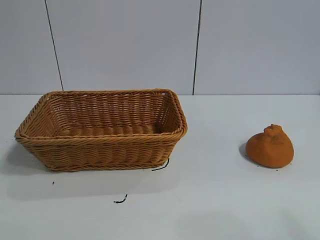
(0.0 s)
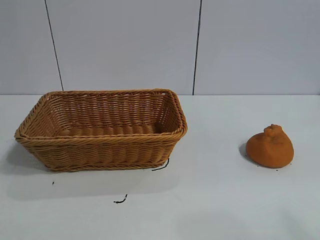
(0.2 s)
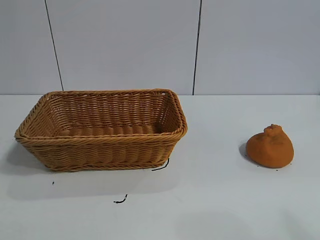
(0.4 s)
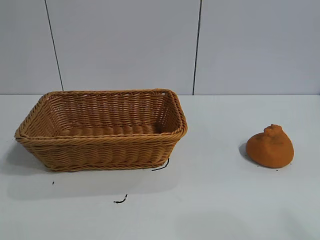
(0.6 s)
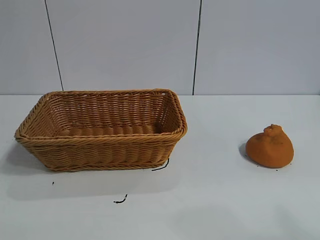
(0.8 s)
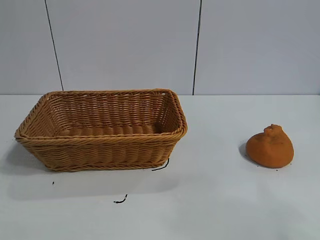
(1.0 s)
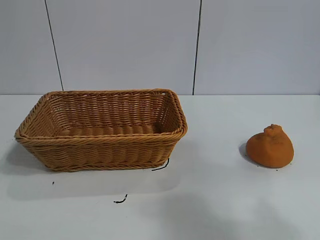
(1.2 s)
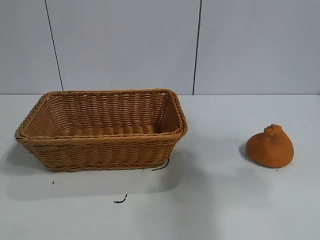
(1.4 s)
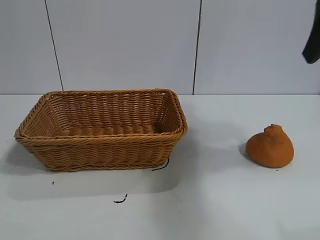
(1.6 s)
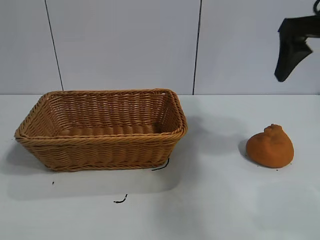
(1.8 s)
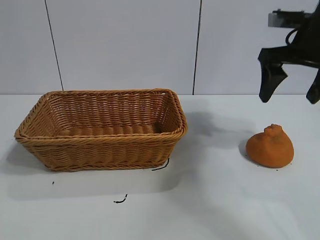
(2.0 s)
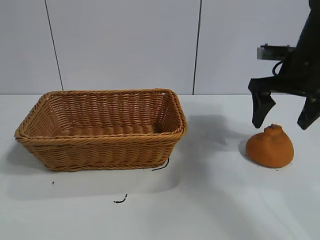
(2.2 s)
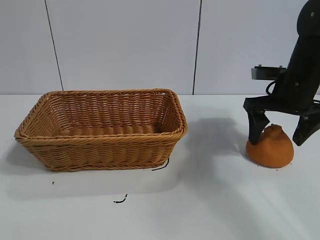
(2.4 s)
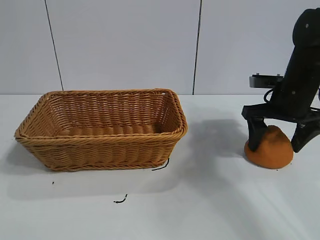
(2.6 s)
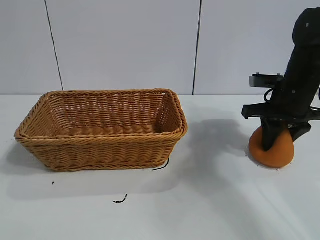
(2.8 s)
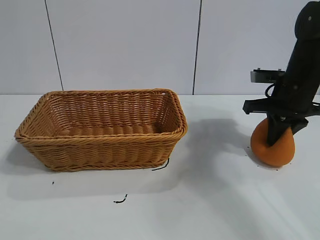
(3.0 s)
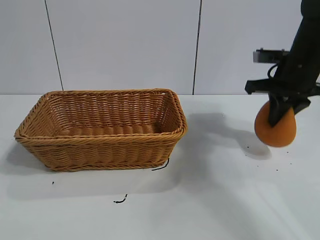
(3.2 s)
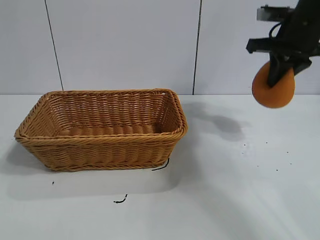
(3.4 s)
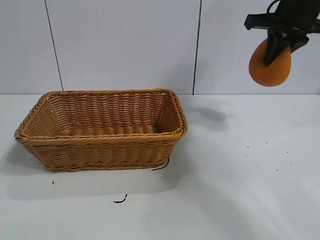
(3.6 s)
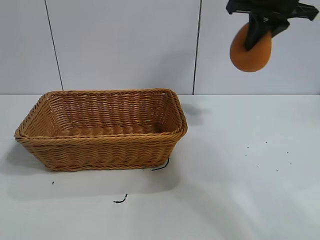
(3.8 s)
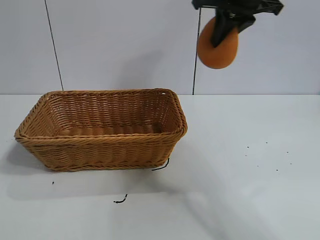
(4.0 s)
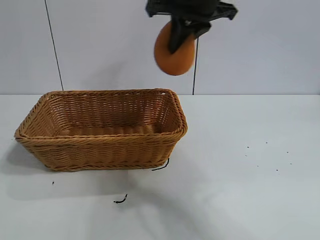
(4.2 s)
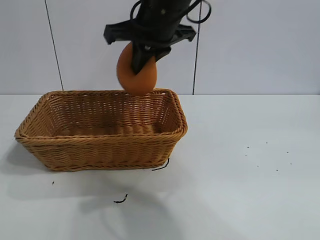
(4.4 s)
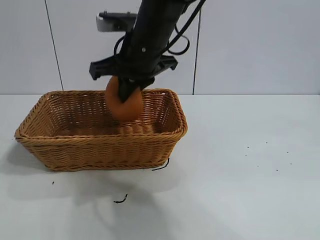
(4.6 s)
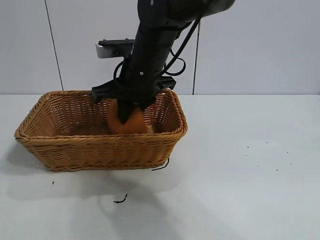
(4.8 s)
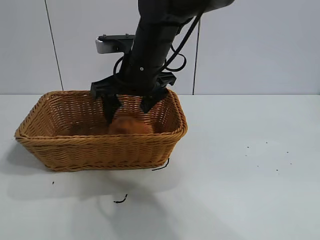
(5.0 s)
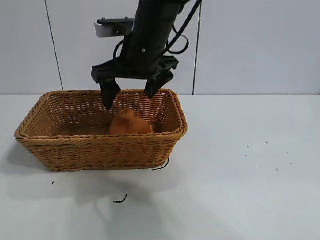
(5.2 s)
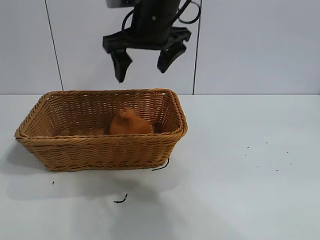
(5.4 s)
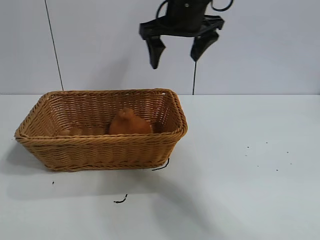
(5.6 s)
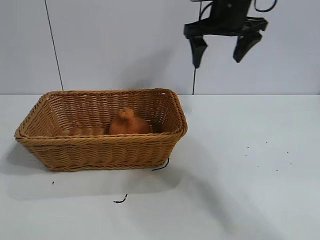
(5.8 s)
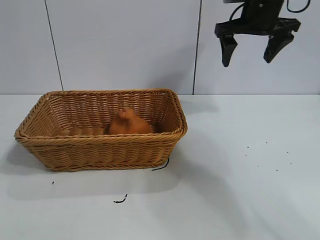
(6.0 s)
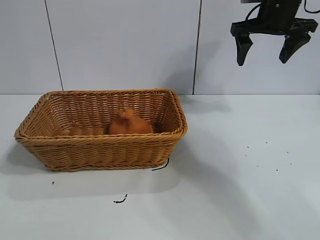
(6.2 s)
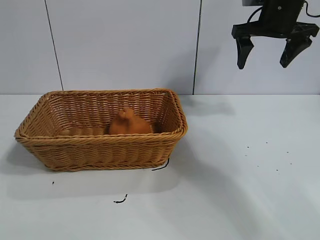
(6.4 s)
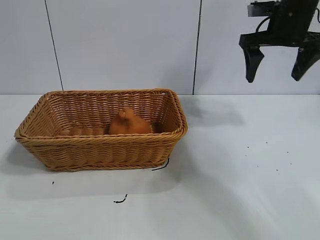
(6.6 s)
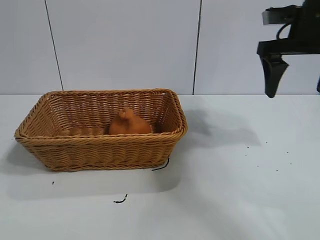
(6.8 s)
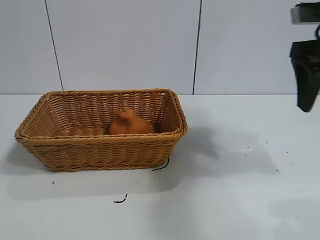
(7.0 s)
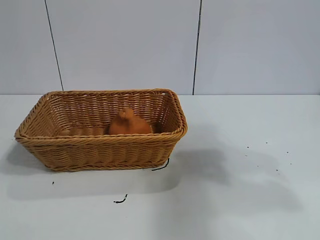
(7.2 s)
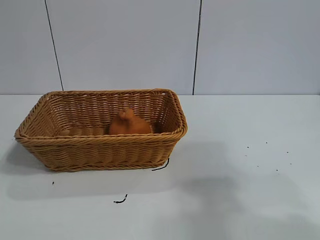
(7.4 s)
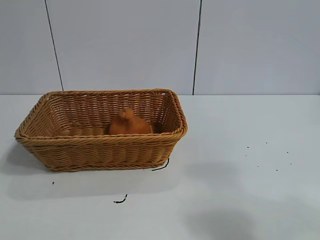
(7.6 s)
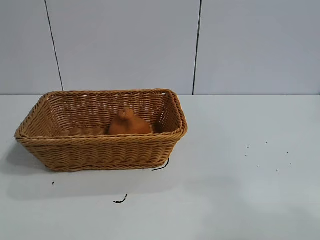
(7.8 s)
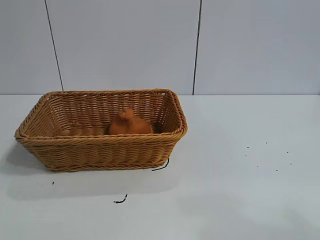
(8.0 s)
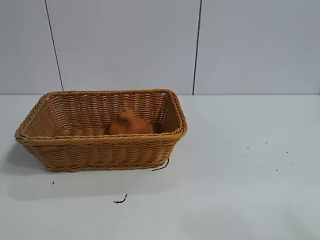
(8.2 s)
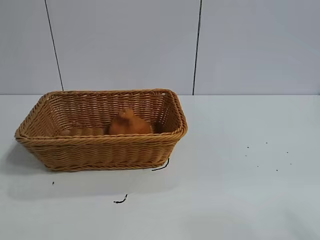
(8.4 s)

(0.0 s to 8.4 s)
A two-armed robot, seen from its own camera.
Task of the whole recording: pick up the orange and put it into the basket.
Step, 0.8 s - 3.0 s: Grasp the orange with right gripper.
Step, 3.2 s - 5.0 s: Place the orange in the basket with right gripper.

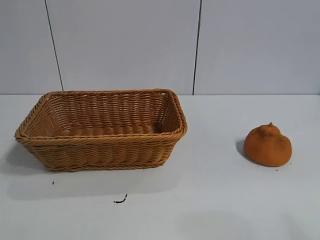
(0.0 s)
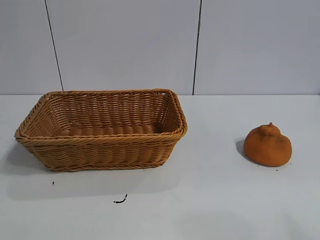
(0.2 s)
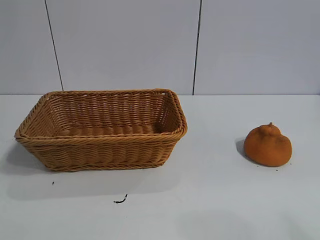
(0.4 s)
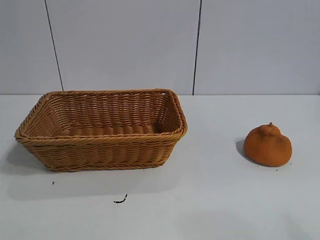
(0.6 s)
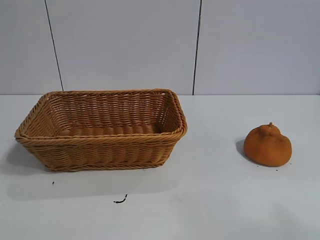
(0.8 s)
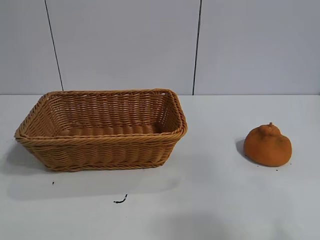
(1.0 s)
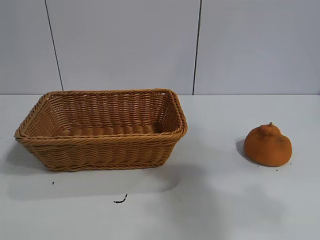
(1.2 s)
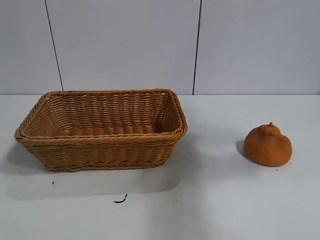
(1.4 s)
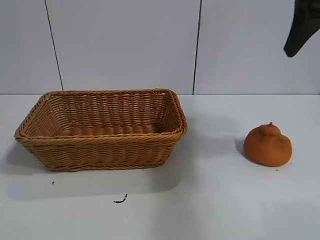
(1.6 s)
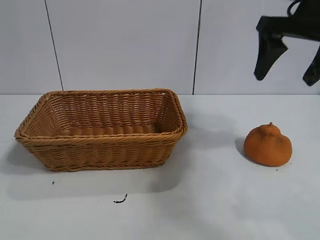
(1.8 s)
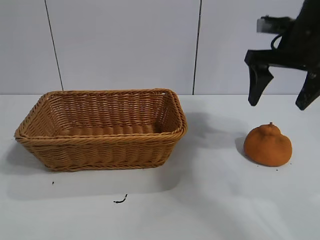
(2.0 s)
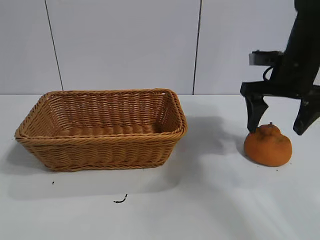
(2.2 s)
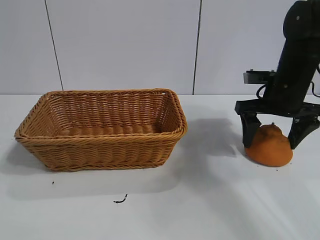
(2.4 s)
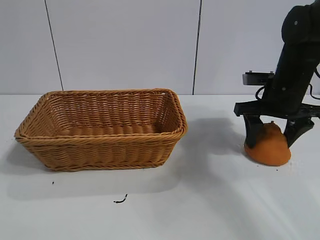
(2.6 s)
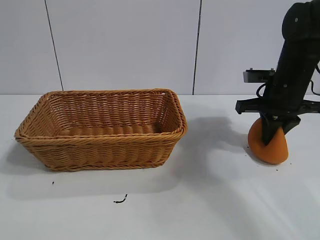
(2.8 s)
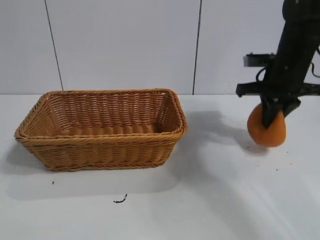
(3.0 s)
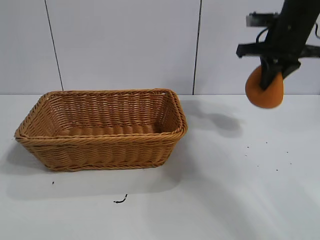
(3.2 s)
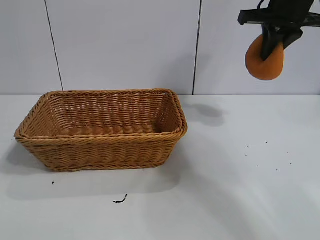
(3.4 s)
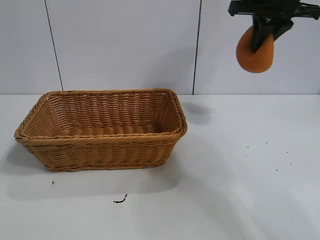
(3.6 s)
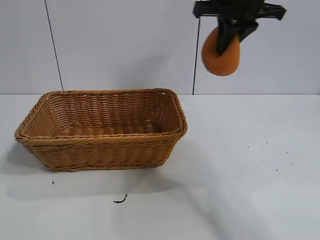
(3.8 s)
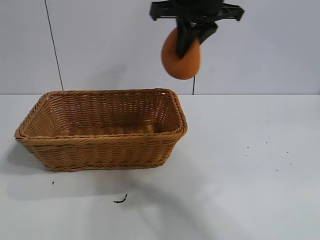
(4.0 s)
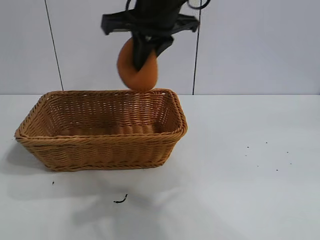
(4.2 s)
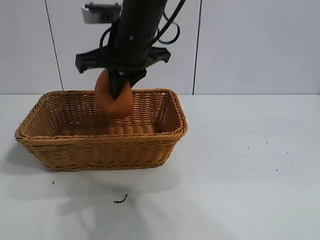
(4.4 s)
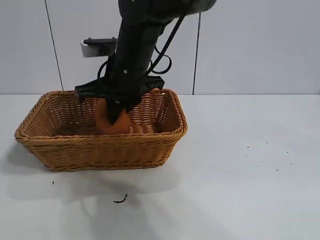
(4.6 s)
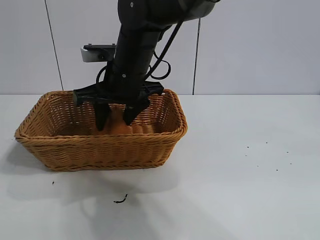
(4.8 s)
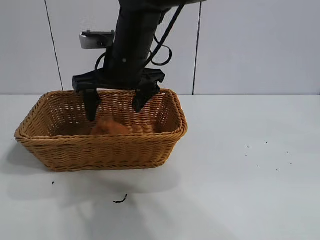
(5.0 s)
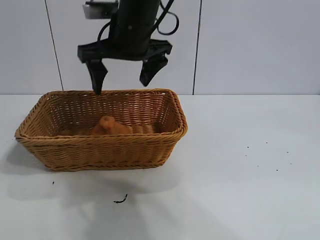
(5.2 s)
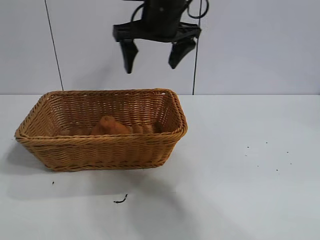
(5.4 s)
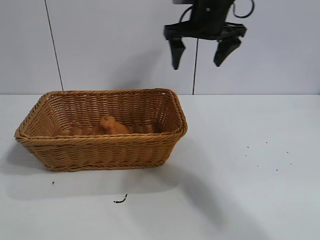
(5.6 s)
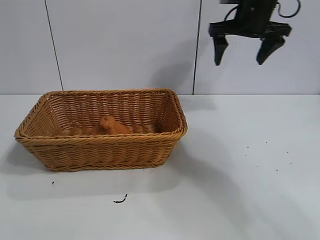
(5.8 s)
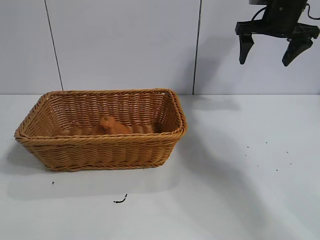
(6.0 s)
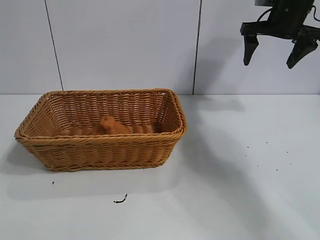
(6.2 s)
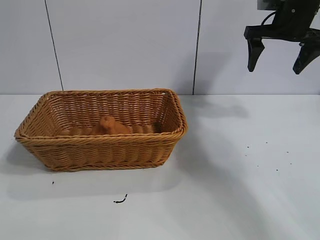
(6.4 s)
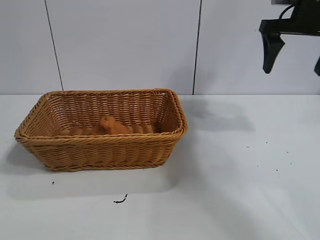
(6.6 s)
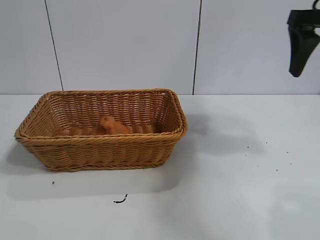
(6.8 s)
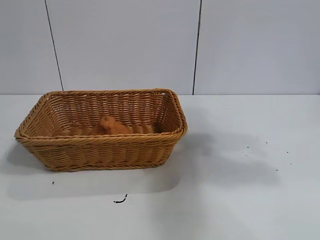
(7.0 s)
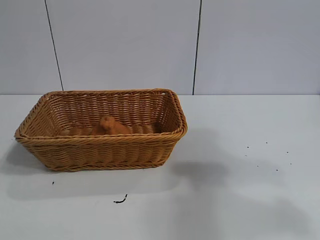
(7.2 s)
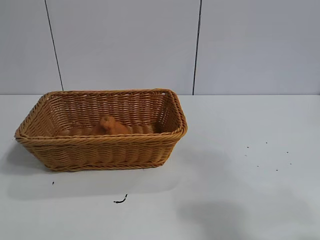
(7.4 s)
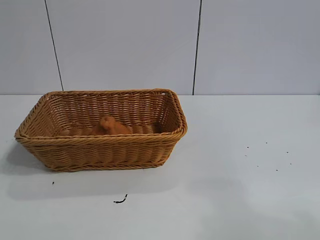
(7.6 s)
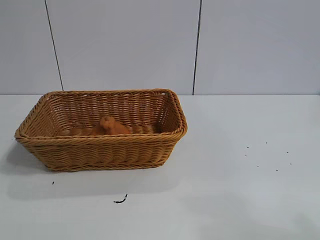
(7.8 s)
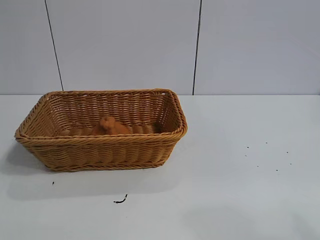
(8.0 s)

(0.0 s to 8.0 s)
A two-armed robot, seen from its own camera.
Task of the whole recording: pick up the orange and put it into the basket.
Step, 0.8 s - 2.6 s: Grasp the orange with right gripper.
Step, 3.0 s - 4.8 s: Place the orange in the basket with right gripper.

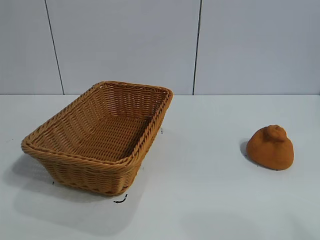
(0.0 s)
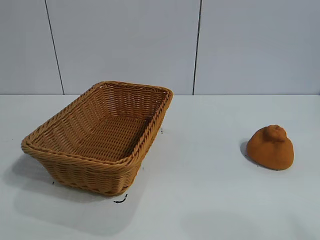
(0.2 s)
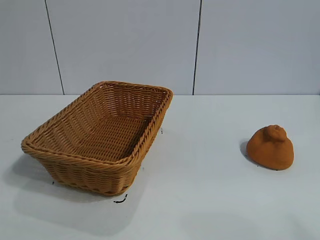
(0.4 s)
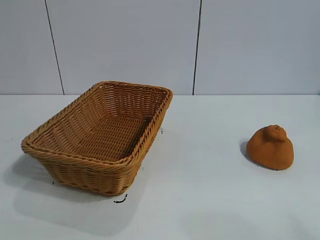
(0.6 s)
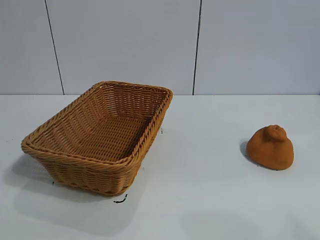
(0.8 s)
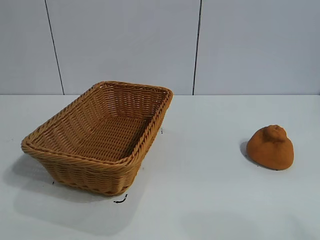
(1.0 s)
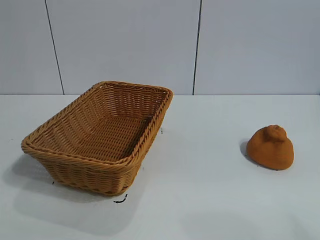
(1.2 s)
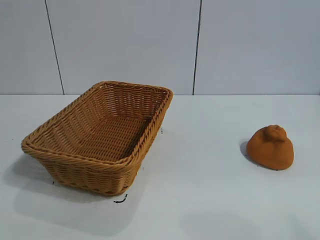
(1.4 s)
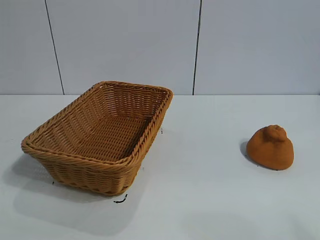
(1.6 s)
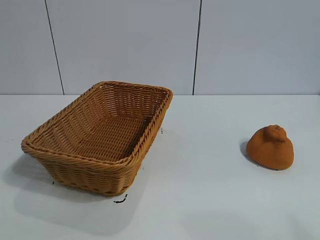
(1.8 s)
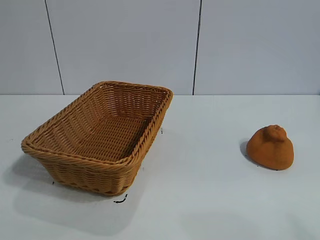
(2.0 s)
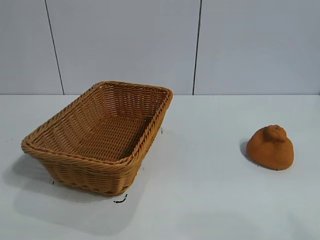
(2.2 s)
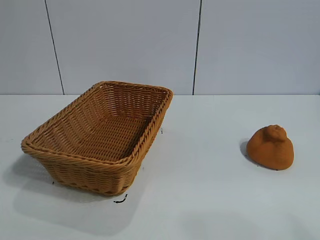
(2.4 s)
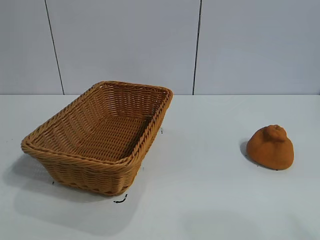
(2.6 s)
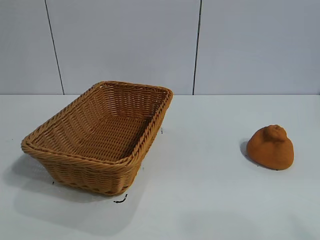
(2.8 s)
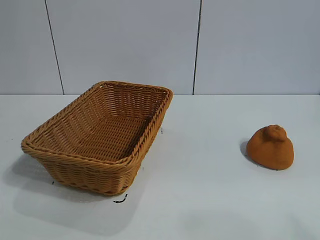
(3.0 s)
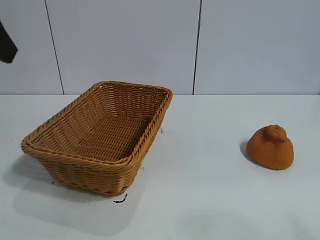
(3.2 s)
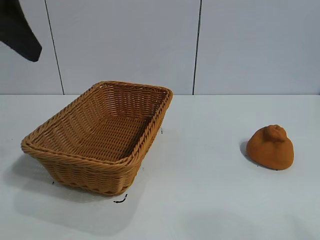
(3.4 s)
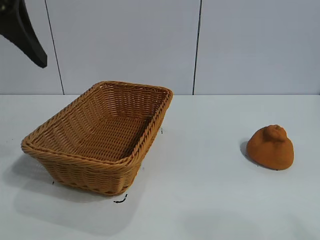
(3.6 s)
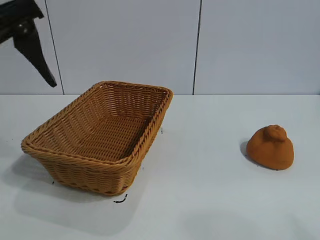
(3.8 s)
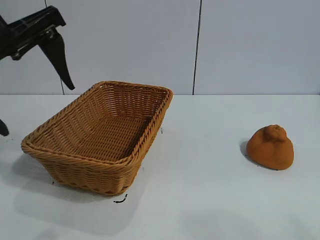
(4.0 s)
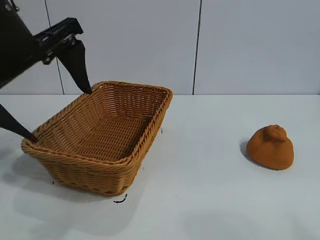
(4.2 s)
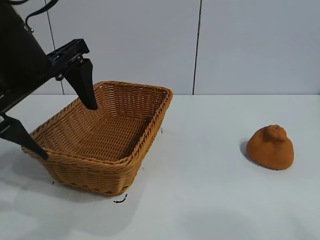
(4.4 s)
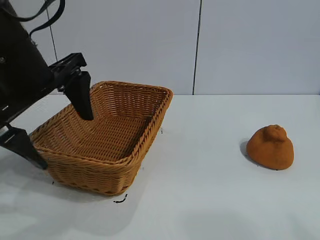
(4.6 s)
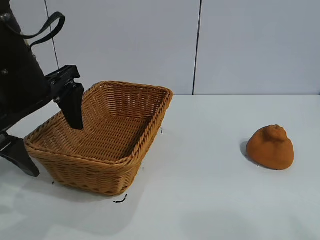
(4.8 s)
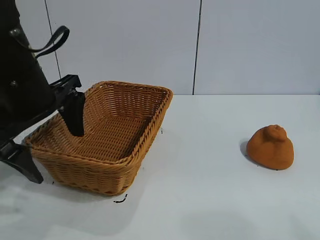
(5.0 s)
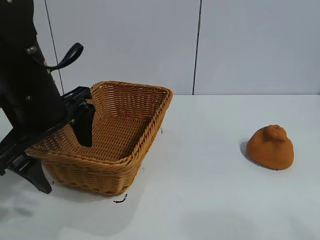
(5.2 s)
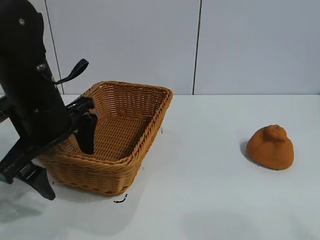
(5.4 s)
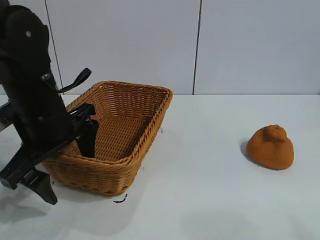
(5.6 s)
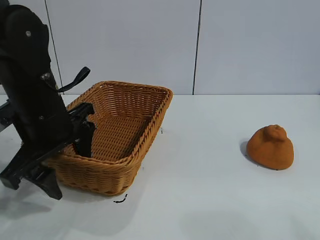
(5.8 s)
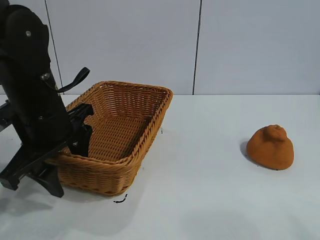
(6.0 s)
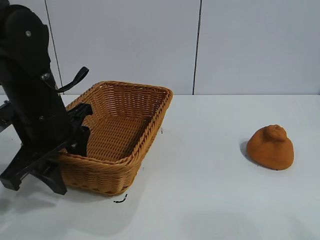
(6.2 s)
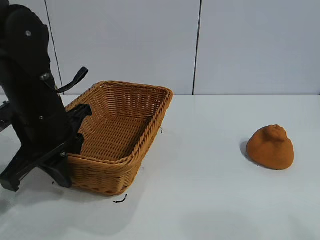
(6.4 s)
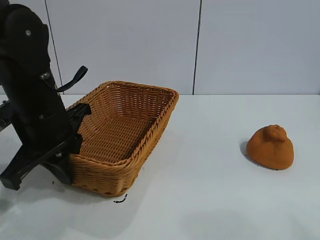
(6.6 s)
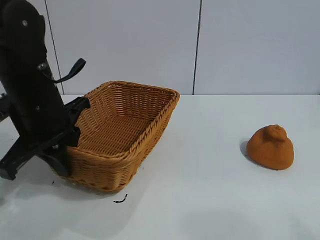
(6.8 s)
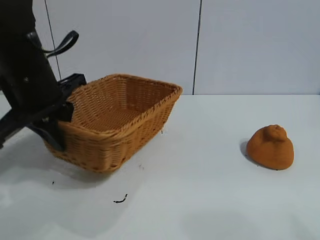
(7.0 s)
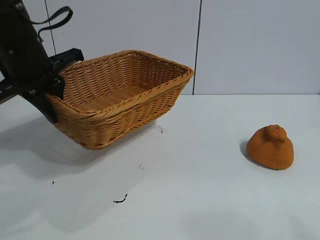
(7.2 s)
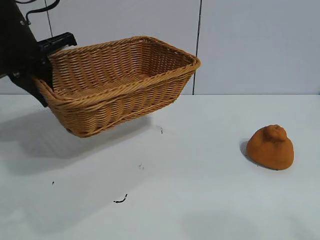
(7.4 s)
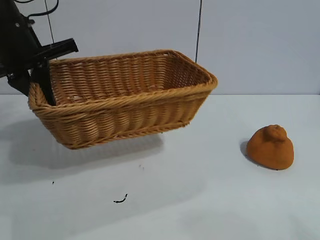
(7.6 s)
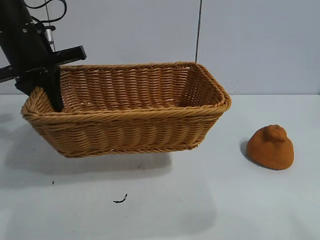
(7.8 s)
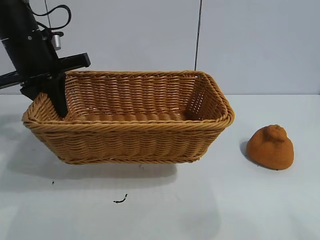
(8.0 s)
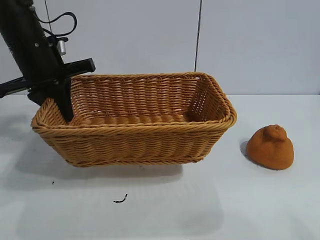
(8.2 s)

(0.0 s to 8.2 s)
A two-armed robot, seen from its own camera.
Task of the whole recording: pick up the orange and put it into the basket.
Step, 2.0 s - 6.6 s: Grasp the basket with left gripper.
